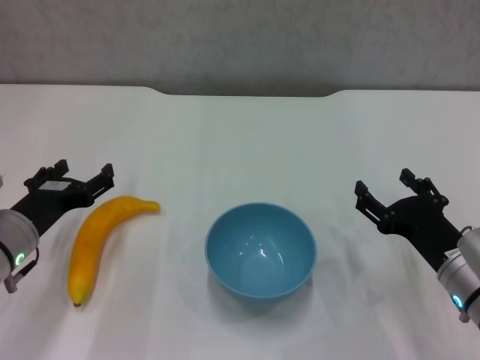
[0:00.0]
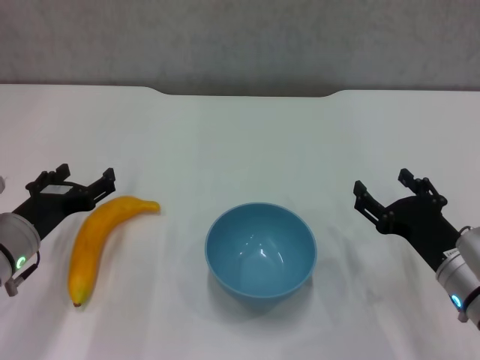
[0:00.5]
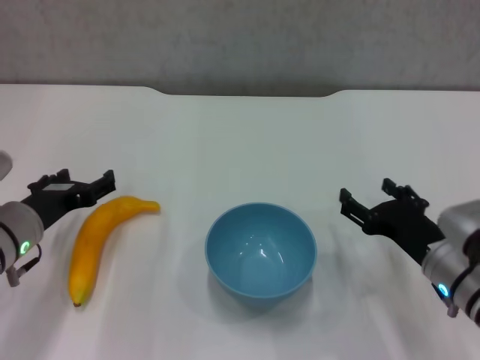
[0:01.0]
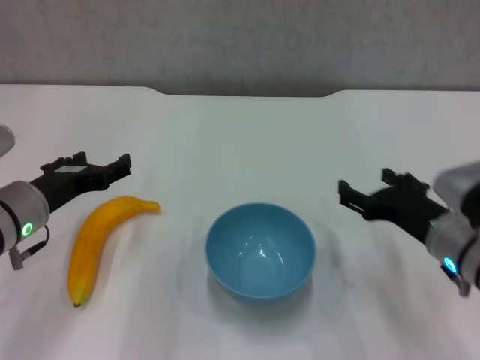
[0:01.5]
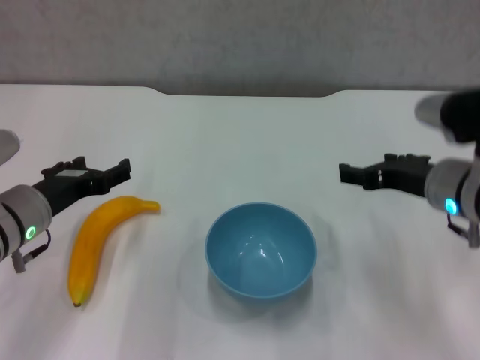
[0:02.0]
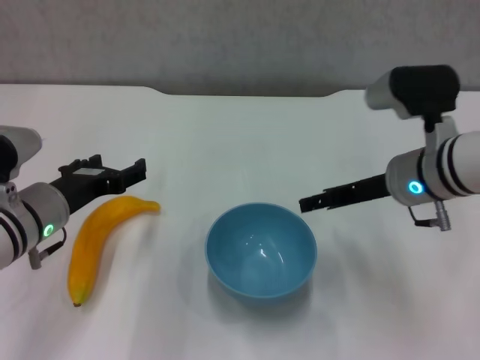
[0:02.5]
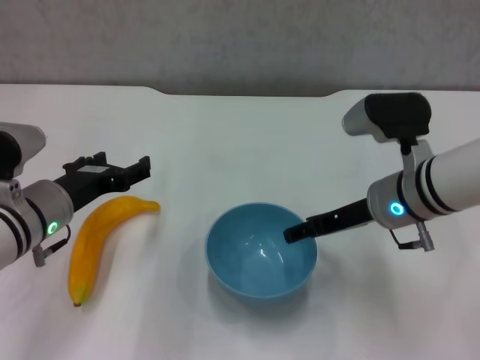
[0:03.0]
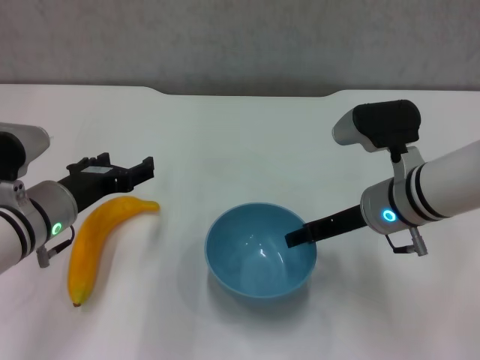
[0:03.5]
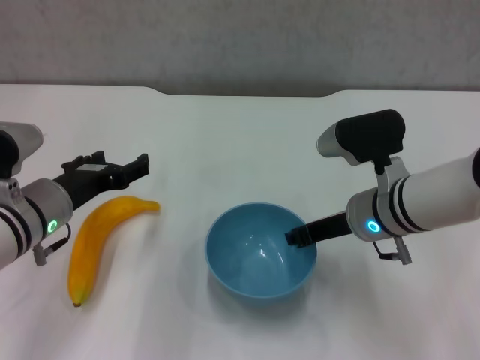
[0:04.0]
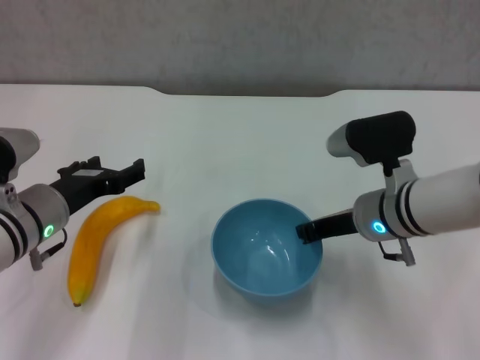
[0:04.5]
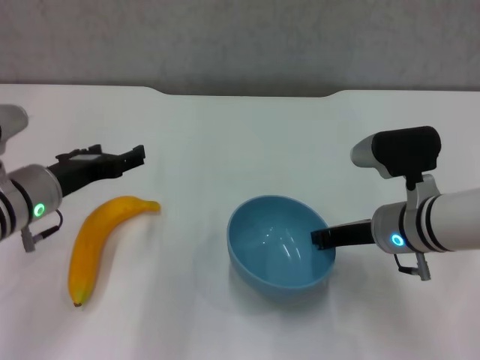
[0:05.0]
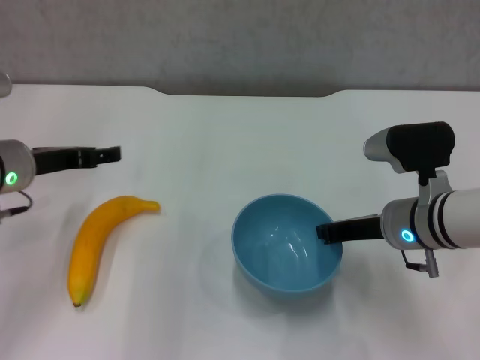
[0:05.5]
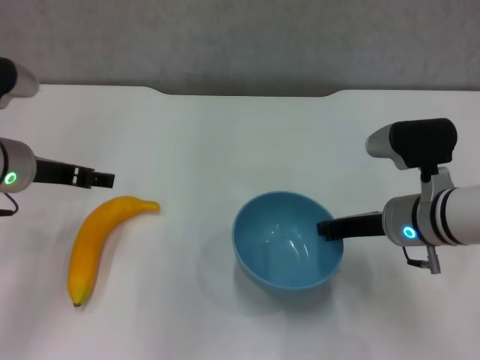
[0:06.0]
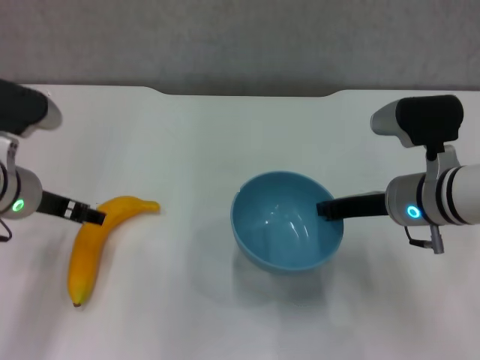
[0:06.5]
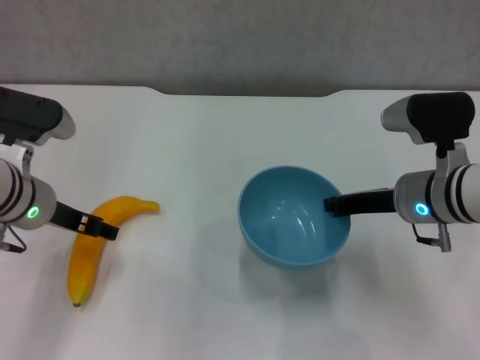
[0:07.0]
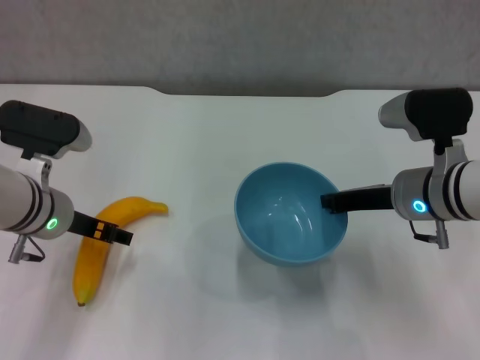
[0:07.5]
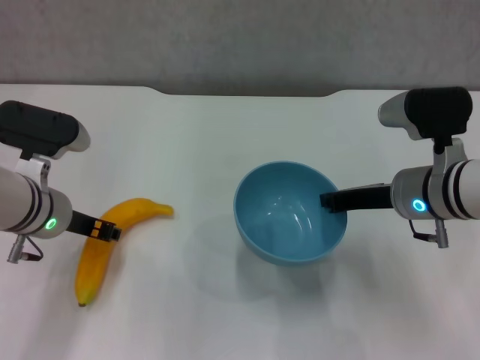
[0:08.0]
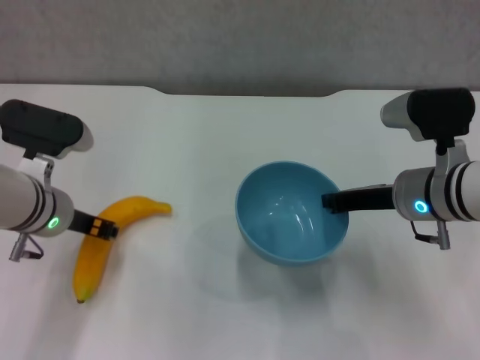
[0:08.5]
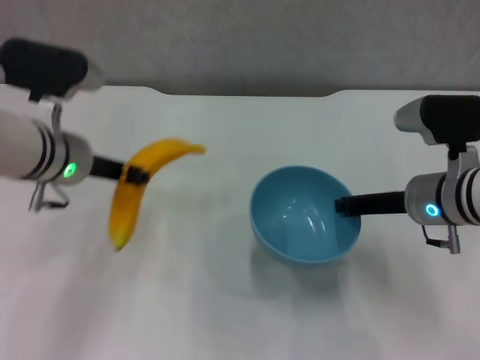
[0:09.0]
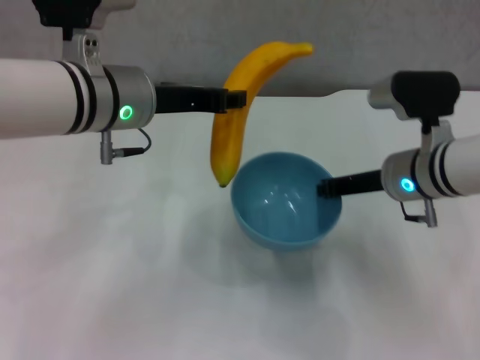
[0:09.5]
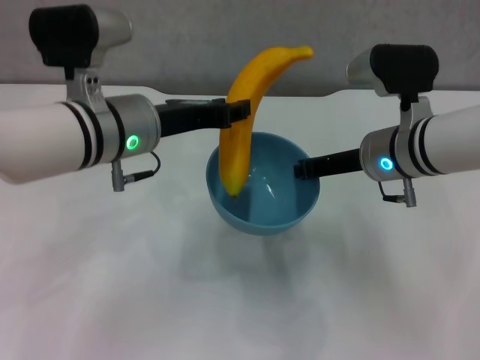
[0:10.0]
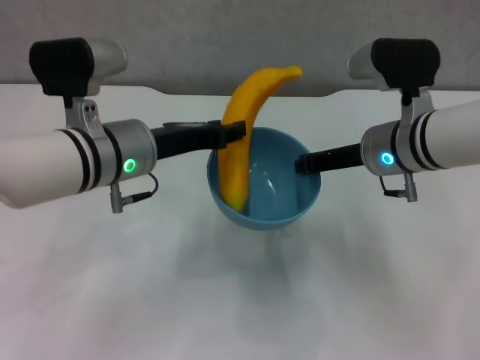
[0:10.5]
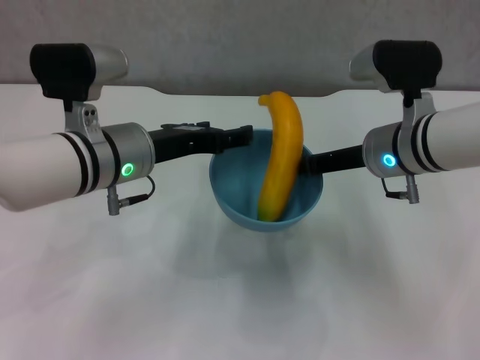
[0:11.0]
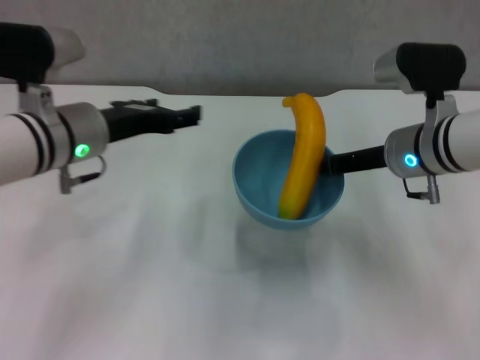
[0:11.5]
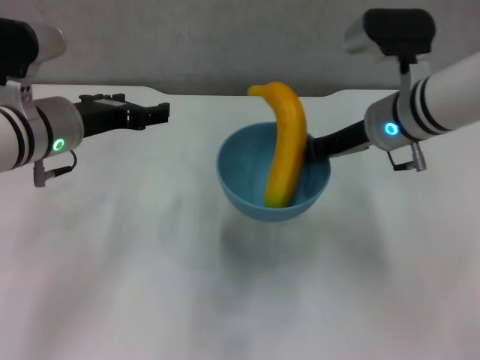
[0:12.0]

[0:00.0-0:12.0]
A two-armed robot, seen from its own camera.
Step, 0:00.0 to 0:04.0: Grasp the blue bowl with right gripper.
Step, 0:04.5 to 0:06.5: Lift the blue bowl with right gripper.
Step, 0:07.0 to 0:08.0: Grasp the banana with left gripper.
Step, 0:09.0 to 0:10.5: Place the banana in the blue bowl with left gripper.
0:00.0 to 0:02.0: The right gripper goes roughly 15 cm upward and forward.
0:02.0 to 0:04.0: The right gripper heads to the left, covering about 5 cm, and closes.
0:04.0 to 0:06.0: The left gripper shifts about 5 cm upward; the right gripper closes.
0:06.0 to 0:08.0: The left gripper changes place by some 5 cm, and closes up.
0:08.0 to 0:10.0: The left gripper heads to the right and upward, covering roughly 10 cm, and closes up, while the right gripper changes place by approximately 5 cm.
0:10.0 to 0:12.0: The left gripper moves to the left, roughly 5 cm, and opens its fingers.

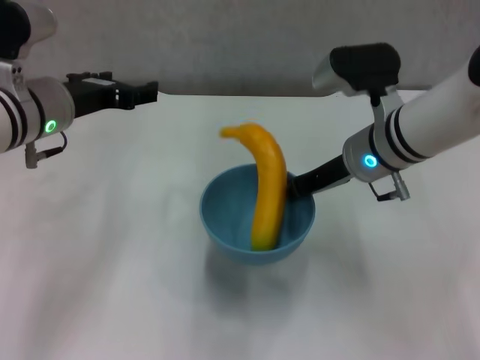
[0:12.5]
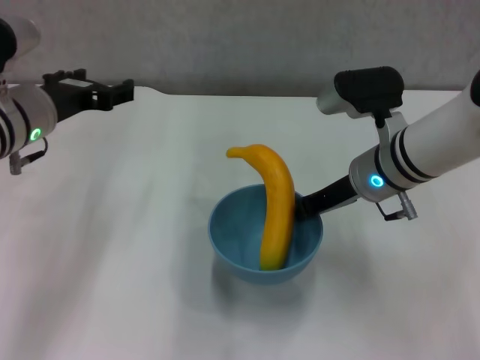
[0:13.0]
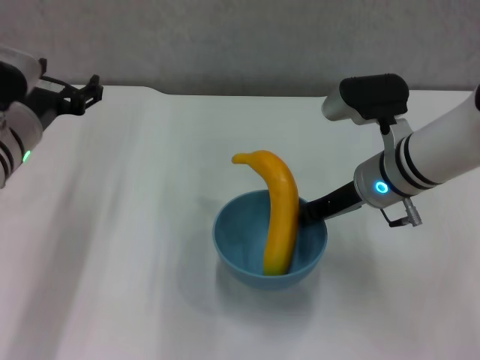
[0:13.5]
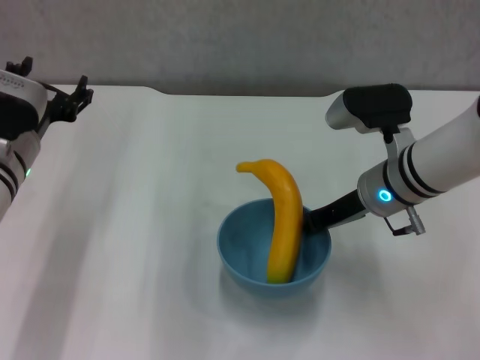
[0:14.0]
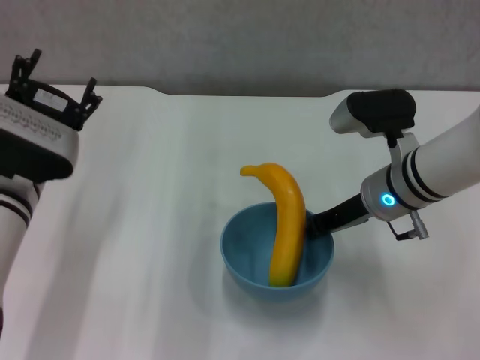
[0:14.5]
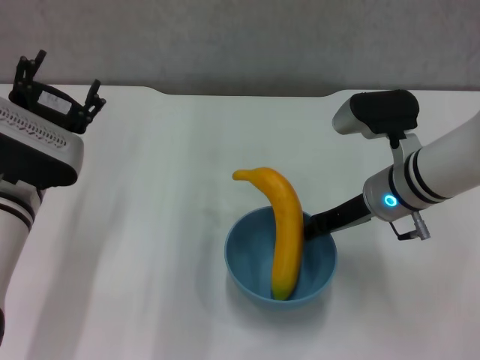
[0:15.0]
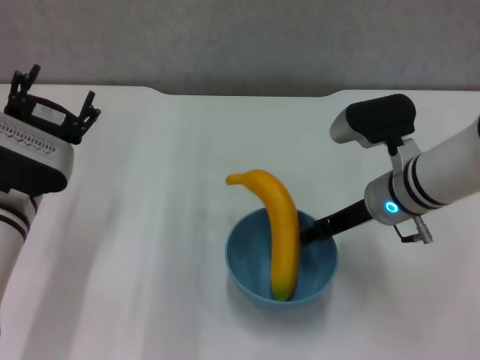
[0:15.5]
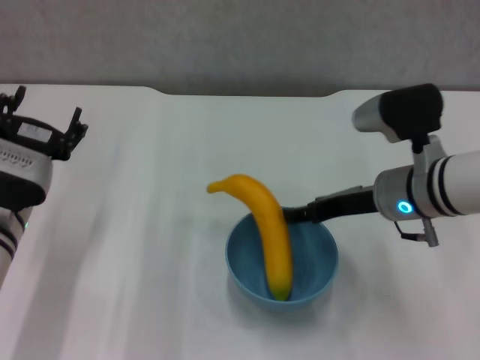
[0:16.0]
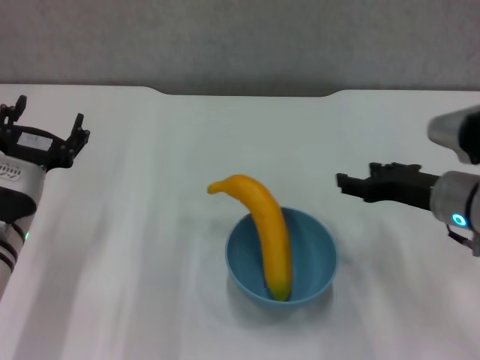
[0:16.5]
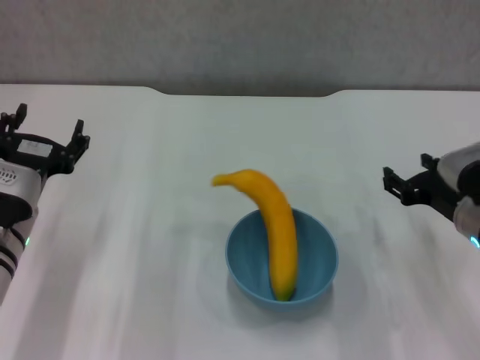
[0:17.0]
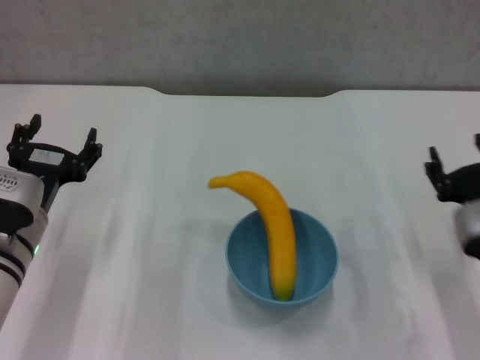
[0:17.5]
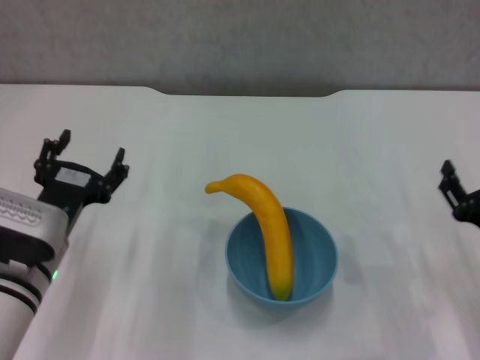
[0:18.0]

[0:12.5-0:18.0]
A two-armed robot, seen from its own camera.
Step, 0:12.5 to 0:16.0: Place the bowl on the table with right gripper.
0:12.5 to 0:14.5: The left gripper moves downward and backward, about 10 cm.
0:14.5 to 0:16.0: The right gripper opens up.
0:16.0 to 0:18.0: The left gripper moves some 5 cm, while the right gripper travels to the right, backward and downward by roughly 20 cm.
